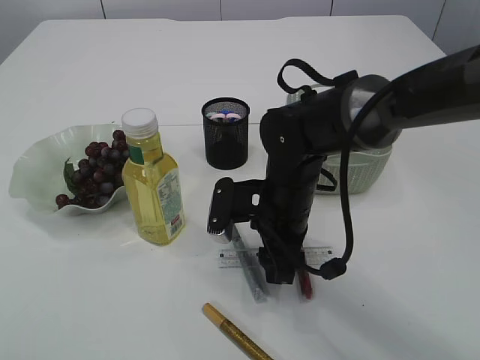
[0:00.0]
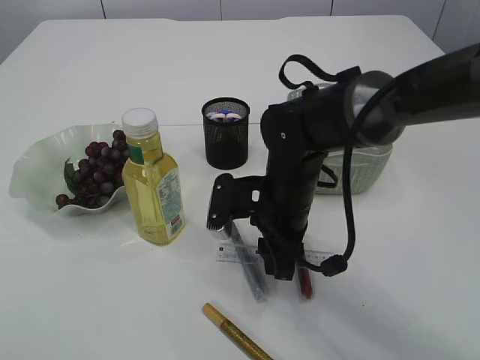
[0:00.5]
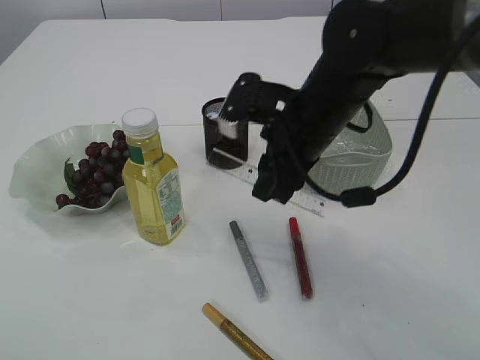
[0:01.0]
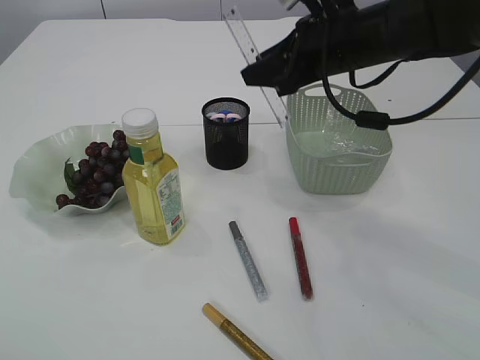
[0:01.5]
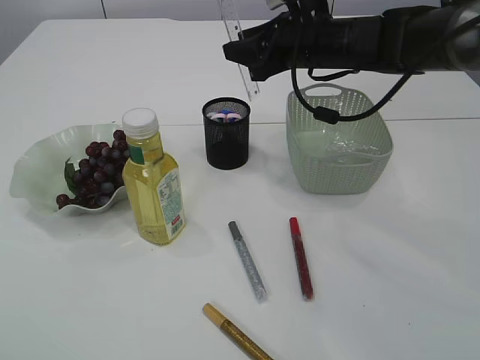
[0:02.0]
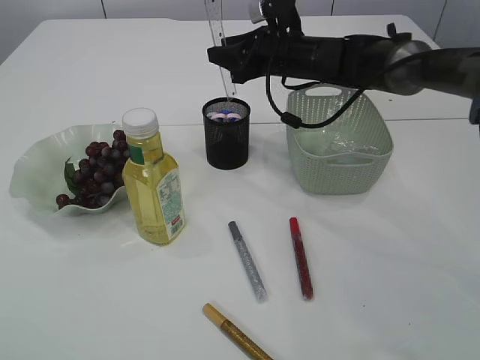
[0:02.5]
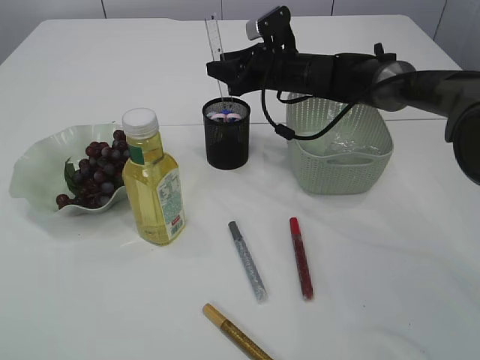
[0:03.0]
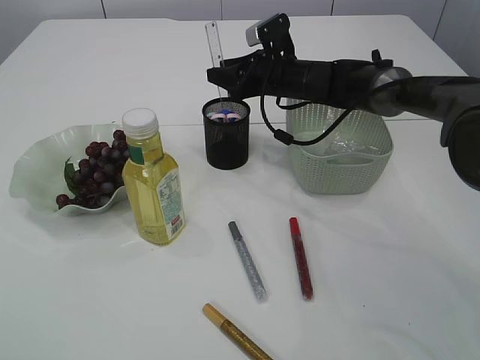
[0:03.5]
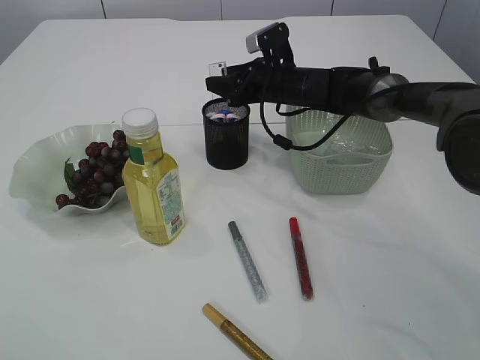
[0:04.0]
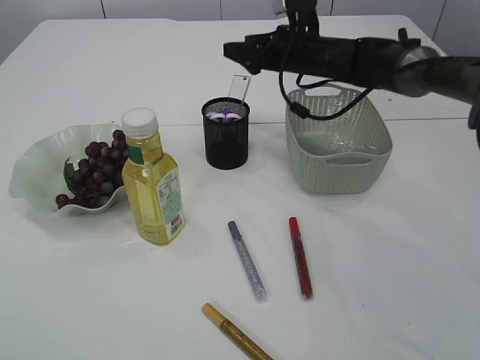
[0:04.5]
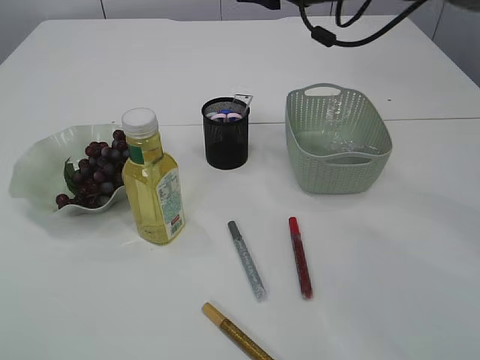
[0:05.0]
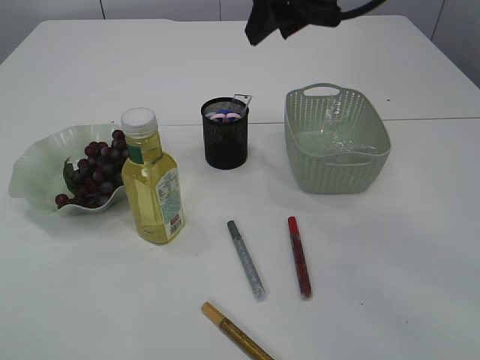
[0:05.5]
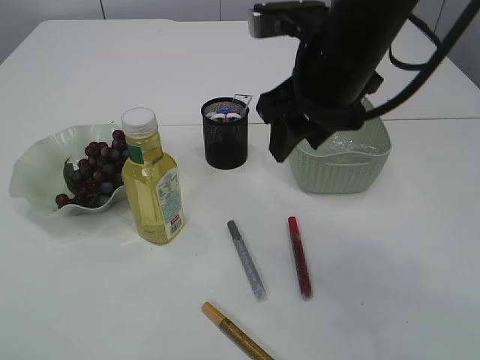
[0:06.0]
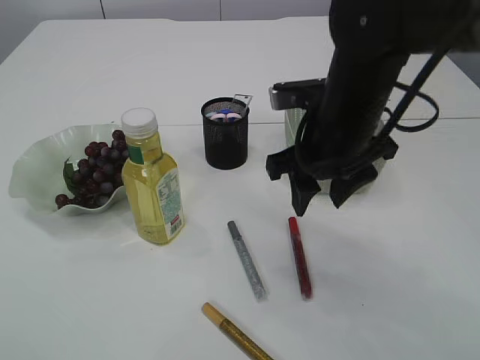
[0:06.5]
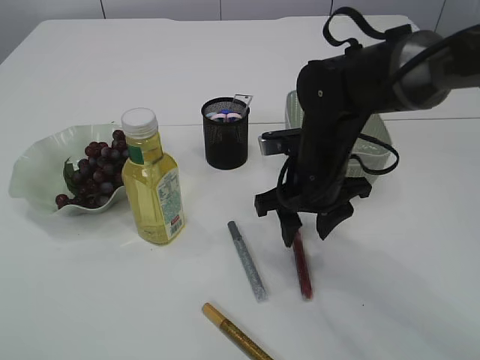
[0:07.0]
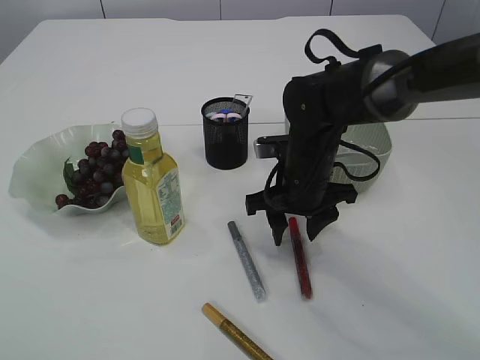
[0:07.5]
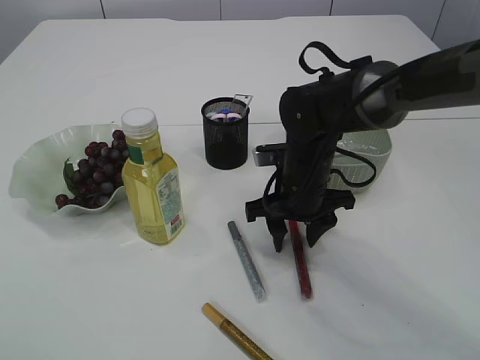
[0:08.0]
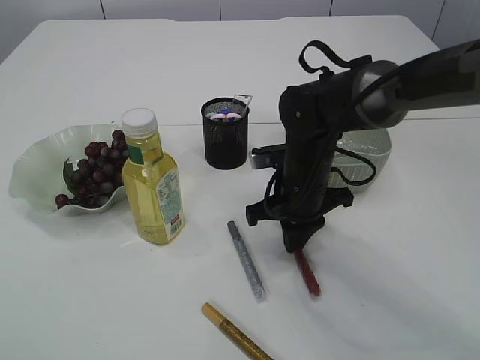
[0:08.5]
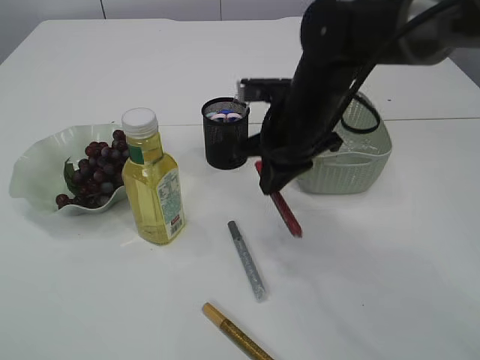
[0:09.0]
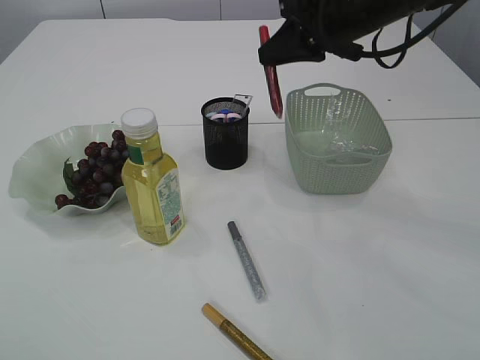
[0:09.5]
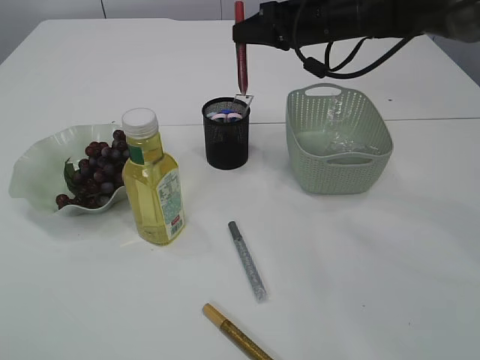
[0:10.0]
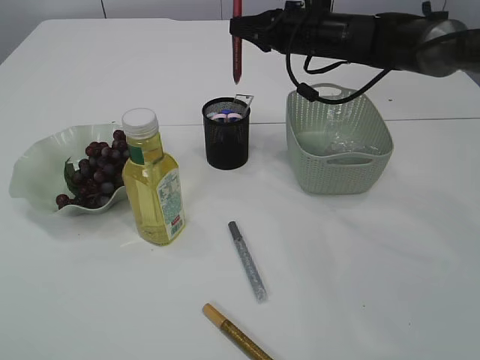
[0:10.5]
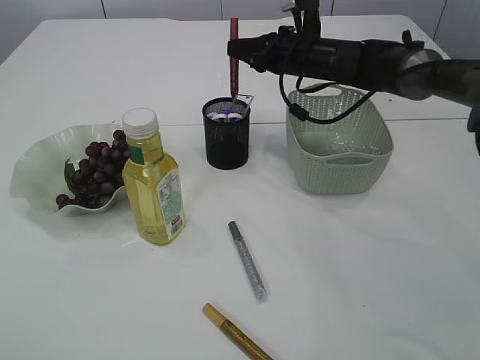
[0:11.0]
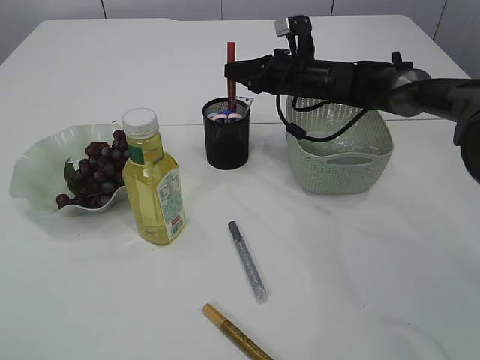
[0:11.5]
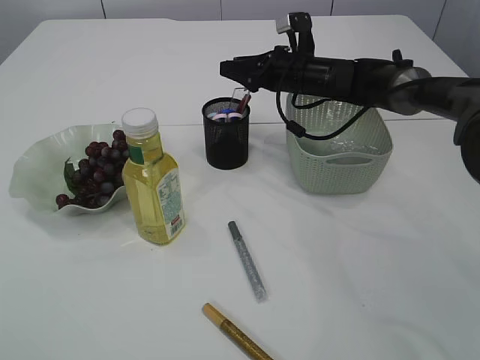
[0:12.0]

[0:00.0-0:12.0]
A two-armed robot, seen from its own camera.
Step, 0:01.0 to 0:04.5: Place the ruler into the pen holder.
Step, 0:05.0 to 0:09.0: pick up the red glue.
0:00.0 to 0:02.0: The right gripper heads forward, upward and to the right, covering roughly 20 cm.
0:02.0 to 0:04.0: The right gripper is displaced downward and forward by roughly 10 cm.
0:04.0 to 0:06.0: The right gripper is displaced backward and upward by some 25 cm.
0:06.0 to 0:08.0: The right gripper shifts some 20 cm downward.
0:08.0 to 0:10.0: The right gripper travels upward and forward by some 20 cm, and closes up.
0:10.0 to 0:12.0: The right gripper goes about 10 cm downward, and opens its fingers.

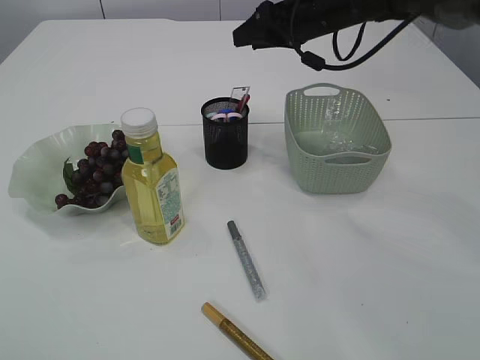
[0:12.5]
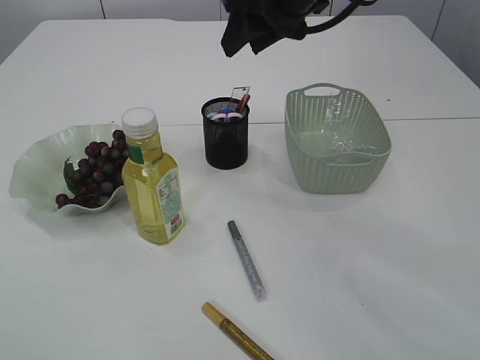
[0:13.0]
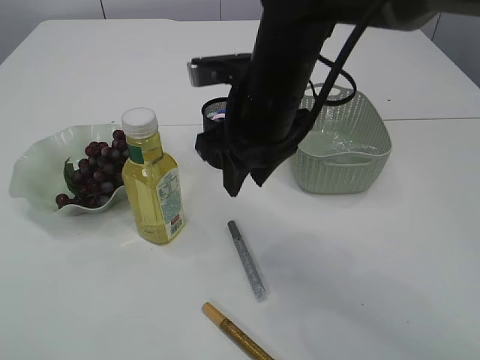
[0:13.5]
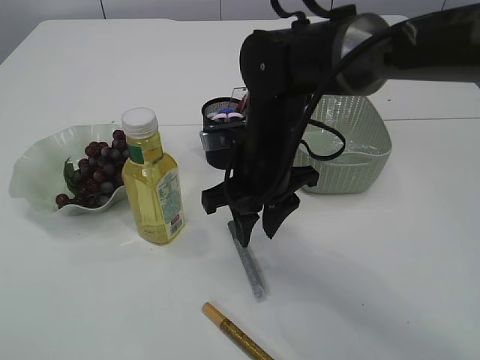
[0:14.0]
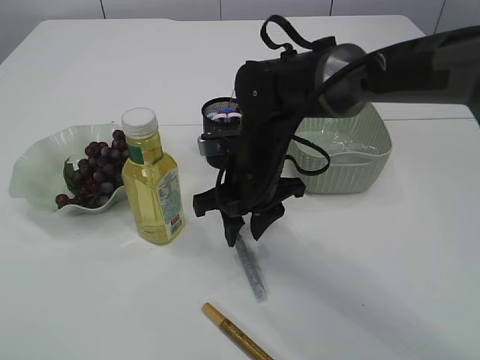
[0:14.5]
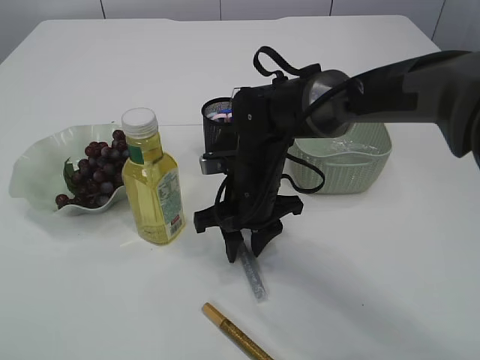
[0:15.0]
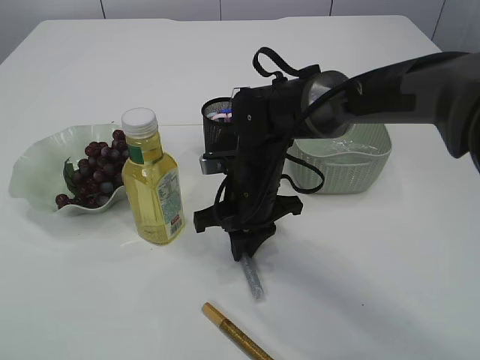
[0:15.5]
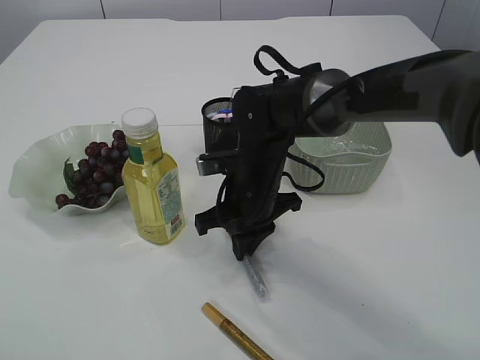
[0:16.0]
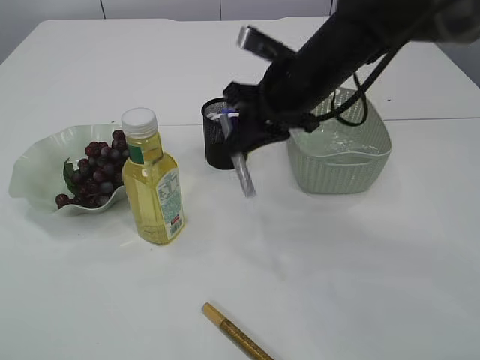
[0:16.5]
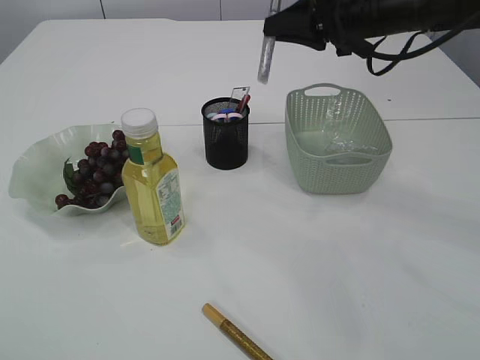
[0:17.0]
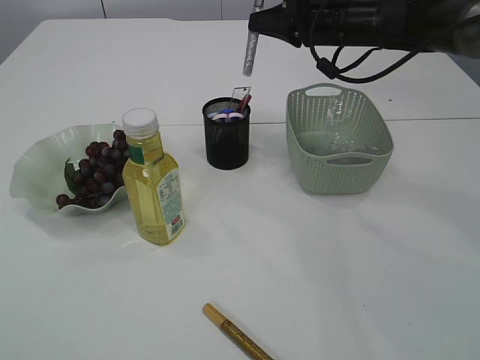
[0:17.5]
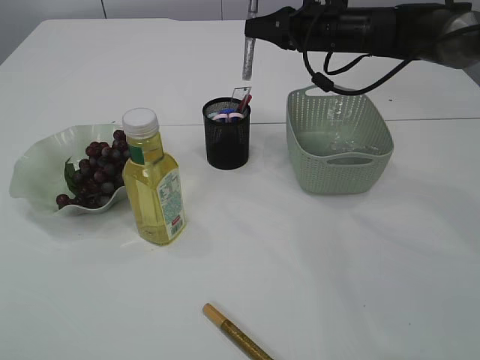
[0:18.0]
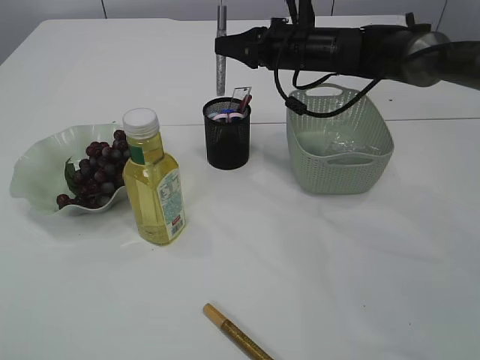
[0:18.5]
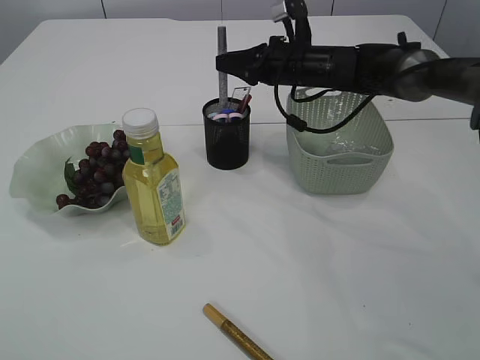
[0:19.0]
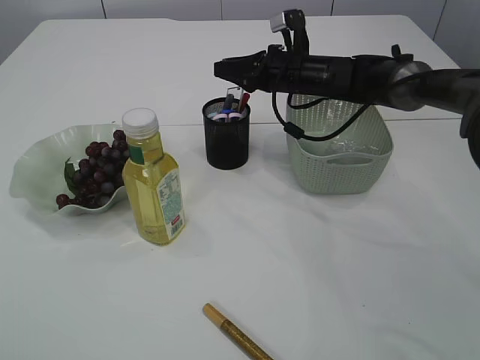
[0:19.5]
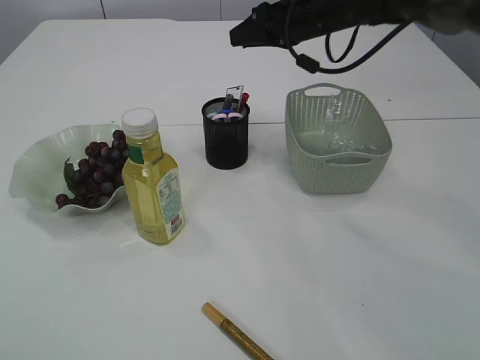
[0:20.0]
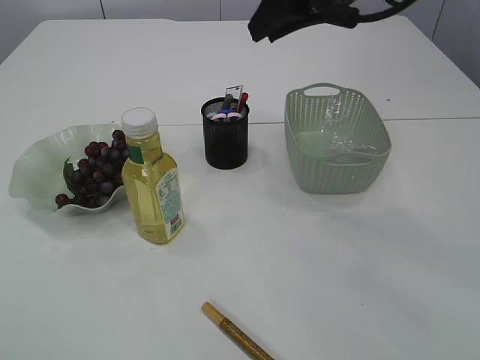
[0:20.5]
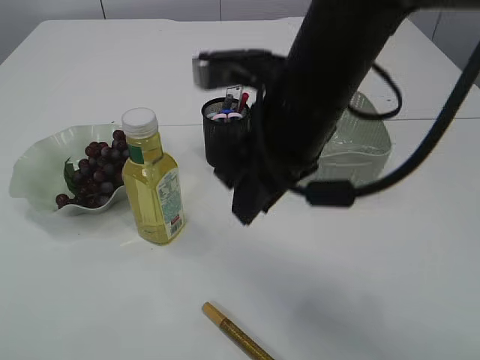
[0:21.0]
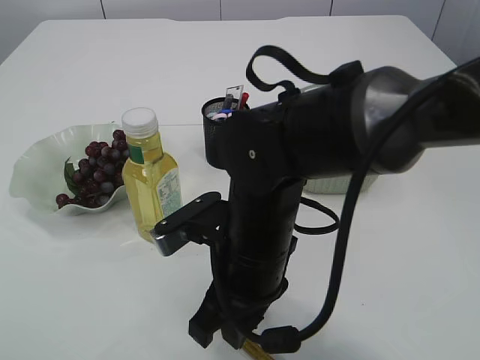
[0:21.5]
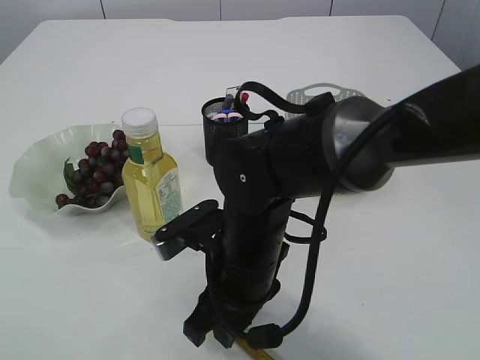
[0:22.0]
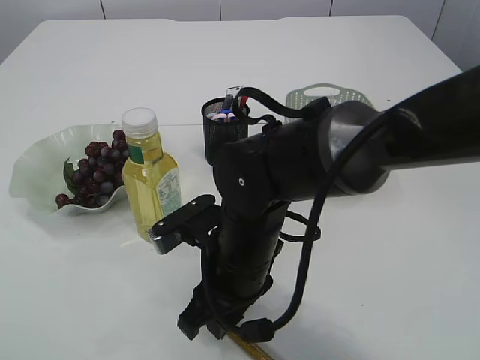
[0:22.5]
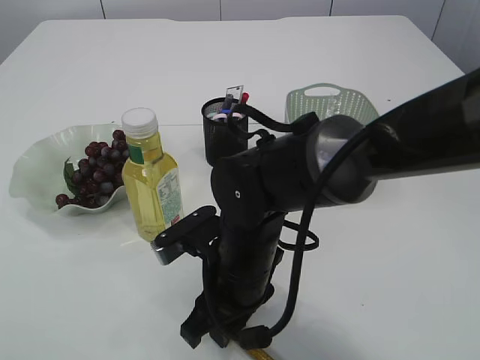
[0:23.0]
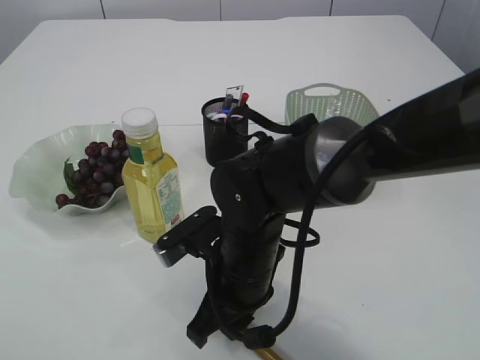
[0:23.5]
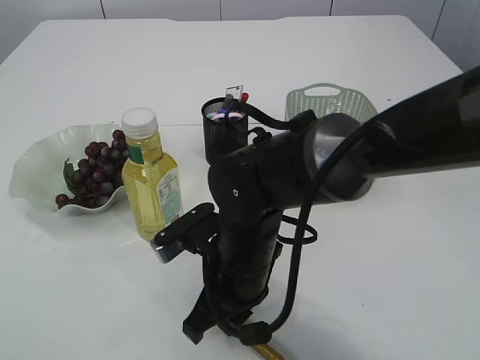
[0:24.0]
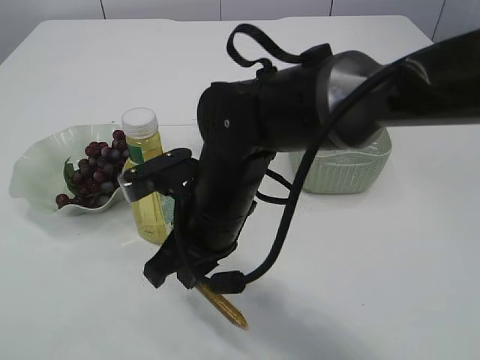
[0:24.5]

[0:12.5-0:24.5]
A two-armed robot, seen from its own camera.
Step, 0:12.5 to 0:16.0: pick up the silver glue.
Step, 0:16.5 to 0:19.5: place the silver glue into the pen holder.
0:12.5 to 0:14.5: The right gripper shifts some 20 cm backward, downward and to the left.
0:14.5 to 0:16.5: The right gripper shifts roughly 10 cm upward and to the right, and closes.
0:16.5 to 0:18.5: The right gripper heads forward, covering approximately 10 cm.
0:18.5 to 0:20.5: The right gripper is displaced upward and backward by roughly 20 cm.
0:20.5 to 0:22.5: The right gripper moves downward, backward and to the left, approximately 30 cm.
0:22.5 to 0:24.5: The right gripper changes place by approximately 5 cm, and closes.

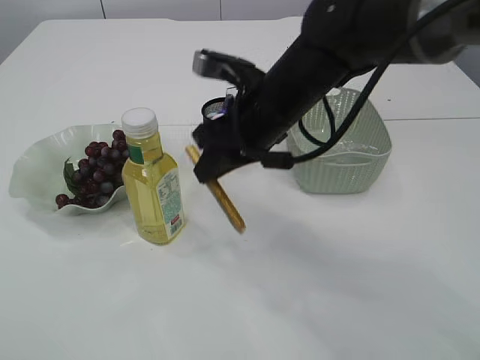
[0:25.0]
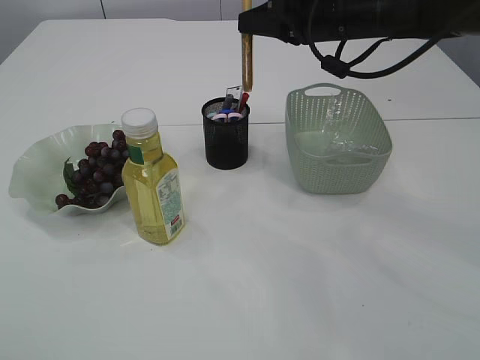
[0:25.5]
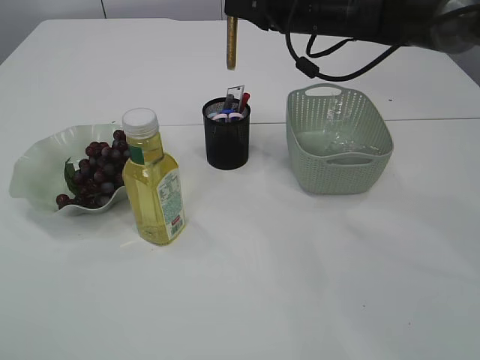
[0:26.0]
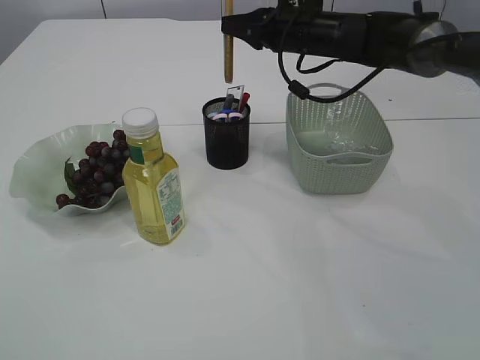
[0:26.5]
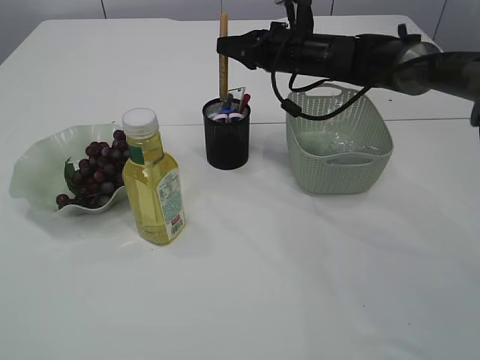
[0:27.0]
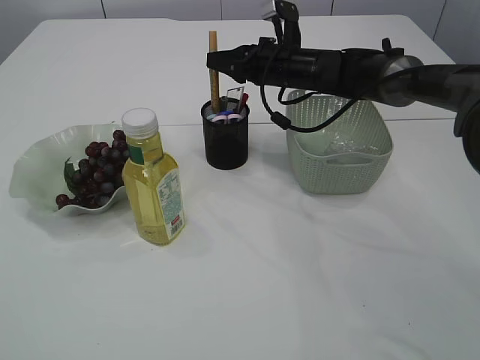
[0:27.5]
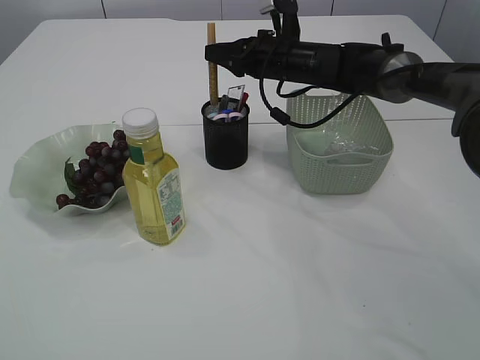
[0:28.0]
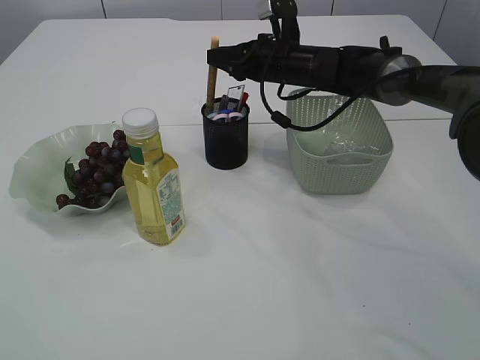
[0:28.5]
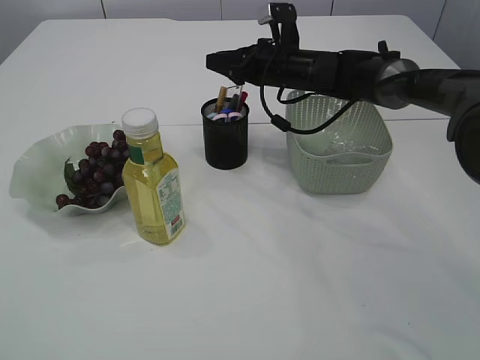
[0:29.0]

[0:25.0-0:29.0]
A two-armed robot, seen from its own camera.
0:25.0 to 0:27.0: The right gripper moves forward, approximately 15 cm.
0:27.0 to 0:29.0: There are only small adjustments of the grippers.
